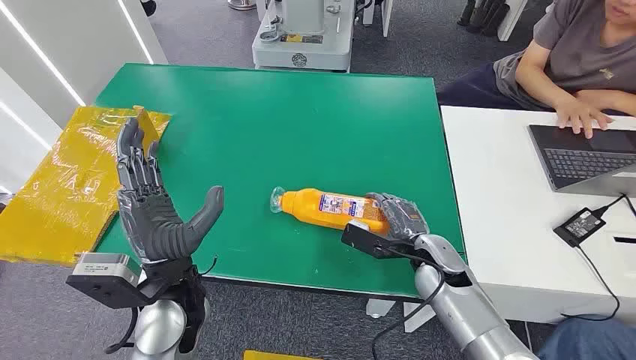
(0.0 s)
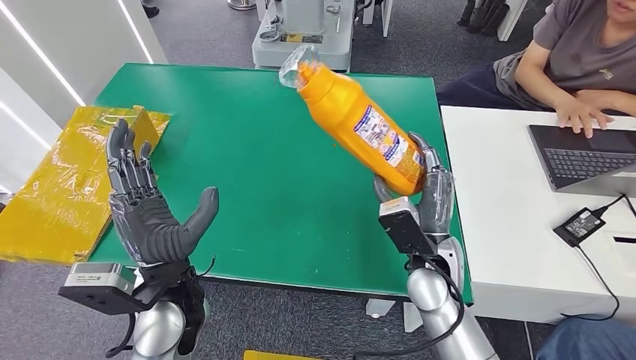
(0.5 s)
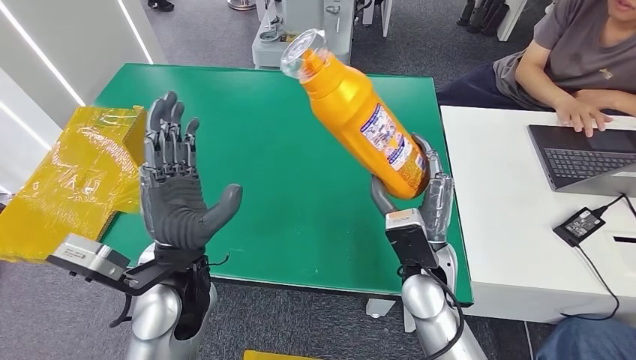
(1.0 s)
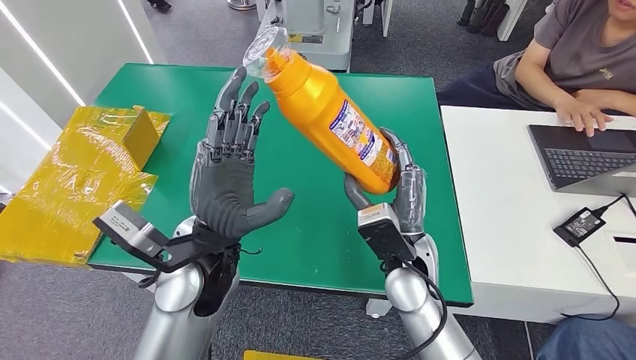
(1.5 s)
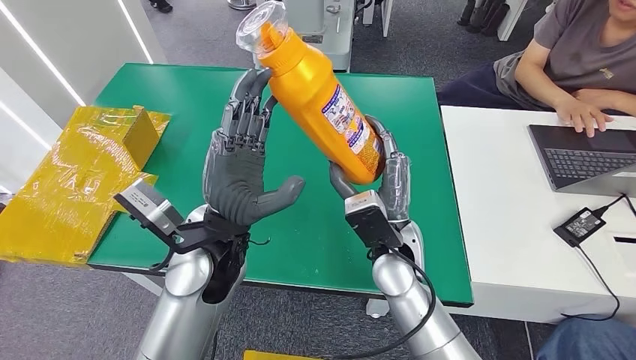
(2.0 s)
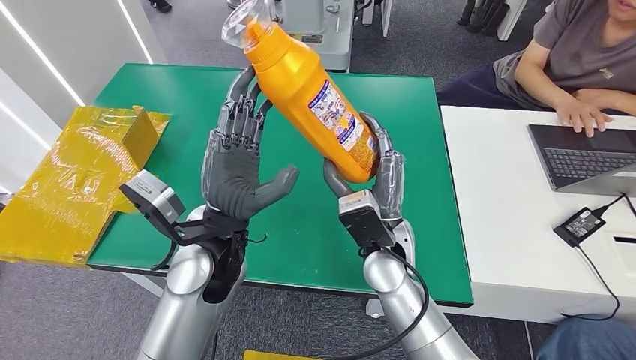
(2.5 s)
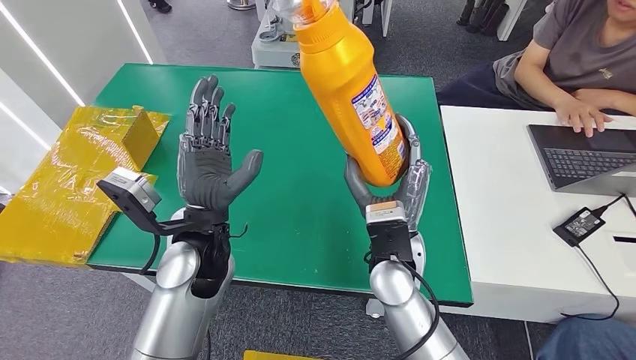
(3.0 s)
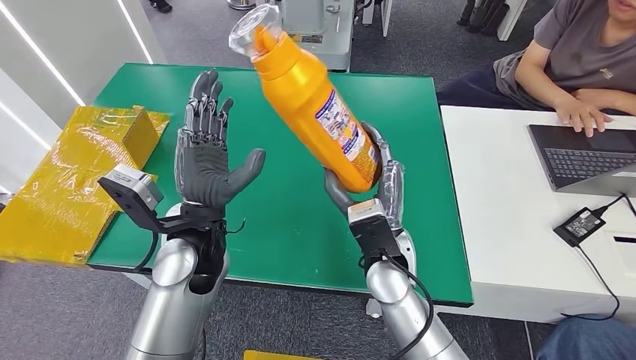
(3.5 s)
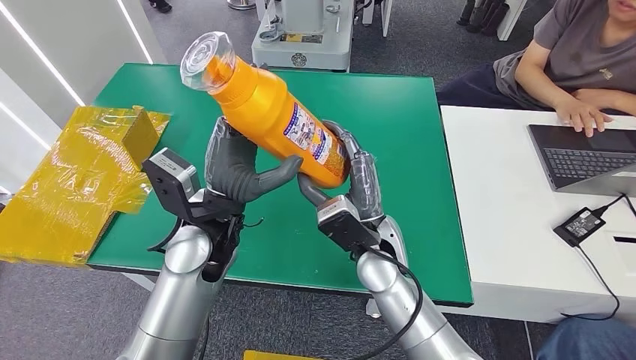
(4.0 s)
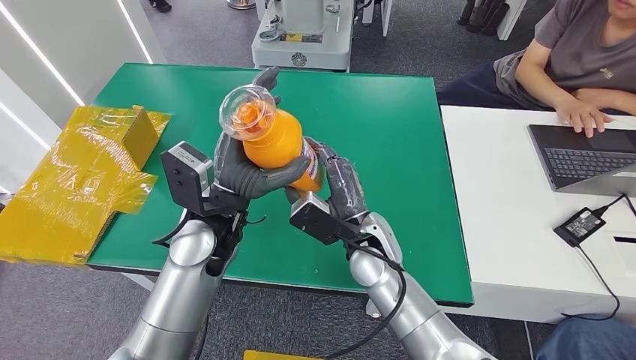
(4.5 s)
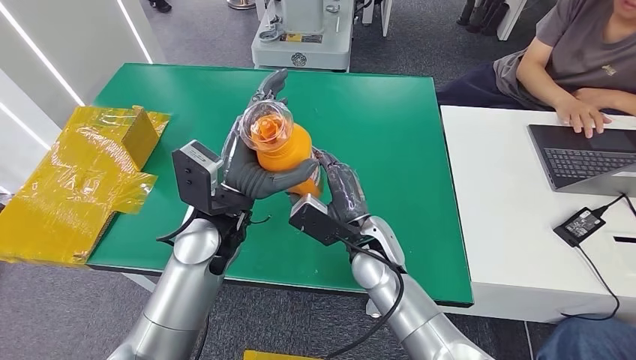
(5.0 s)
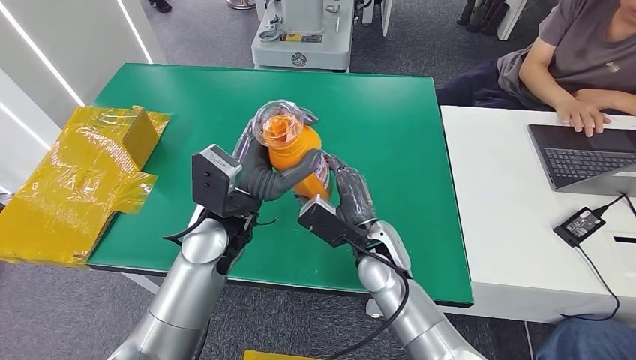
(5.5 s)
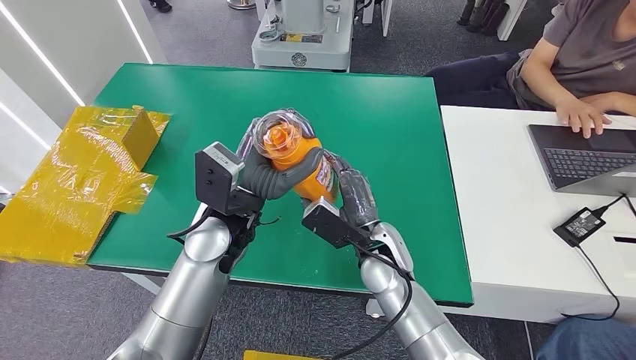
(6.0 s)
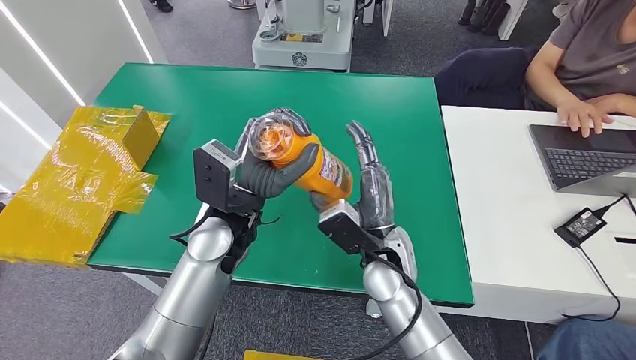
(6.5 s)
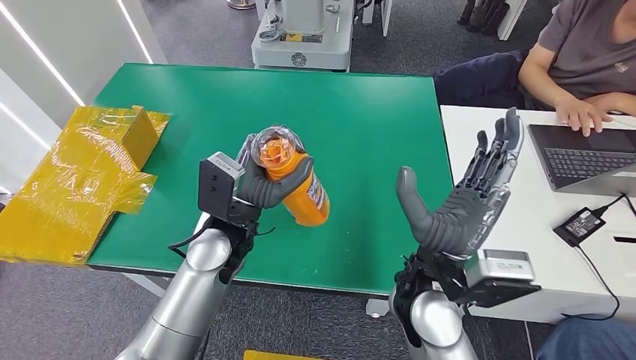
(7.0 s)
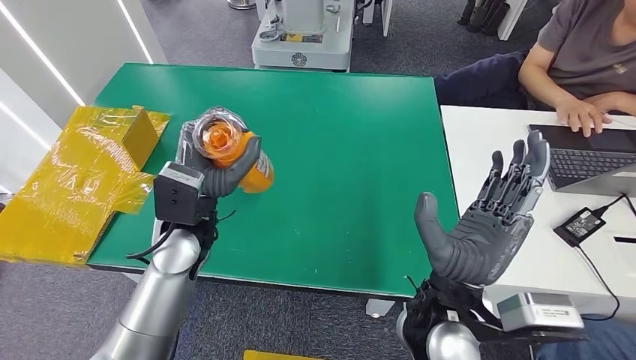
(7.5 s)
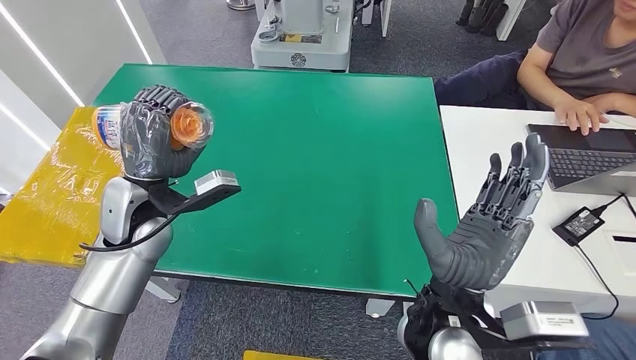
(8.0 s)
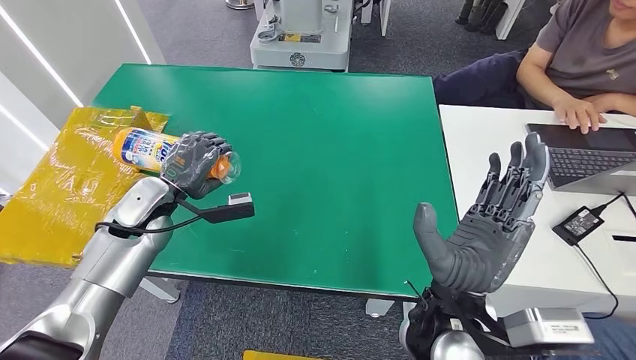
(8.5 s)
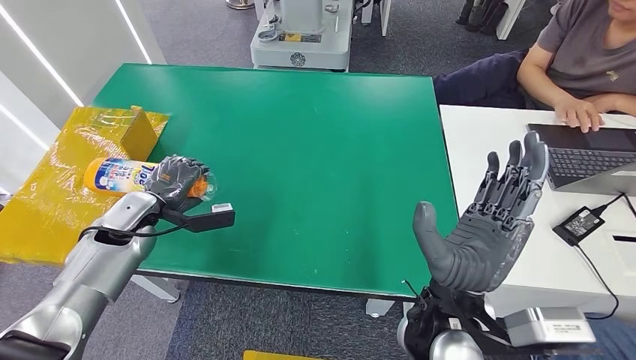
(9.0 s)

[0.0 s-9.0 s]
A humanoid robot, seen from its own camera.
Step, 0.0 to 2.0 s: Pick up the bottle from the table.

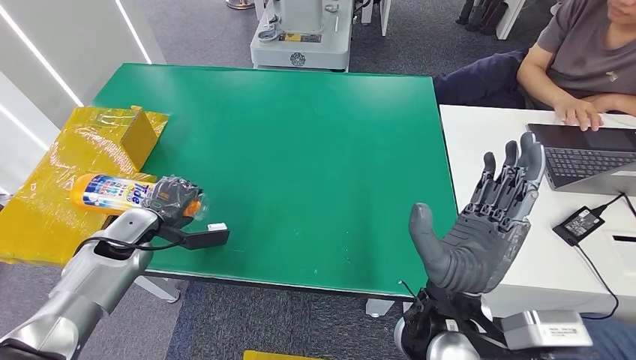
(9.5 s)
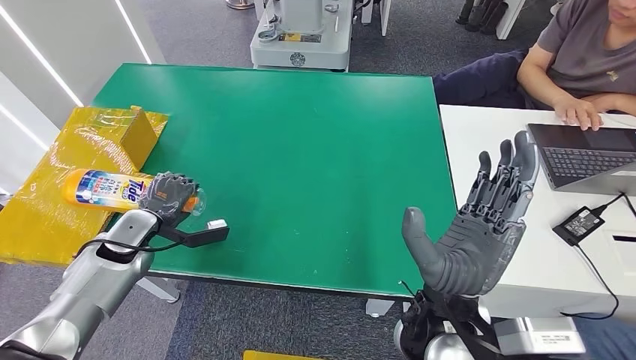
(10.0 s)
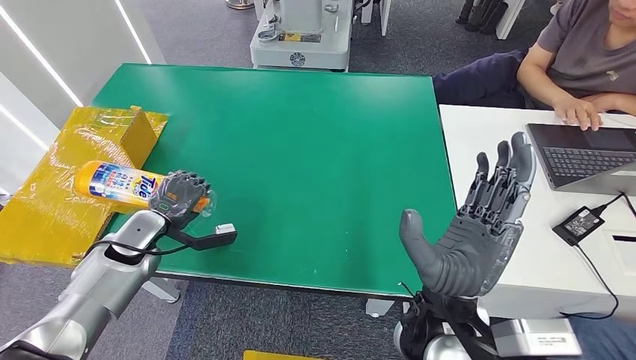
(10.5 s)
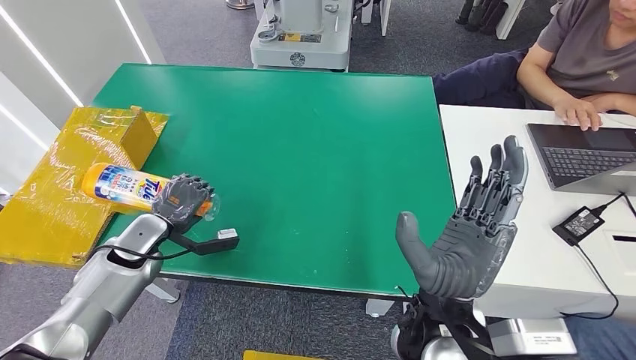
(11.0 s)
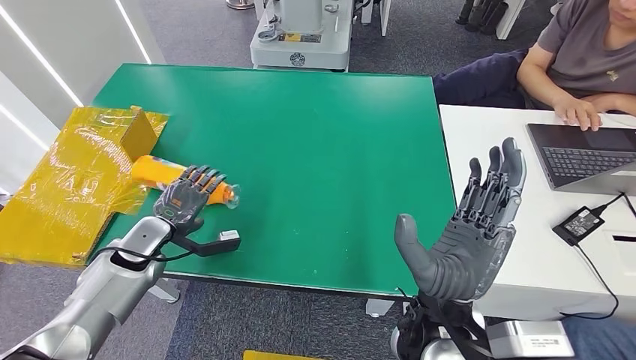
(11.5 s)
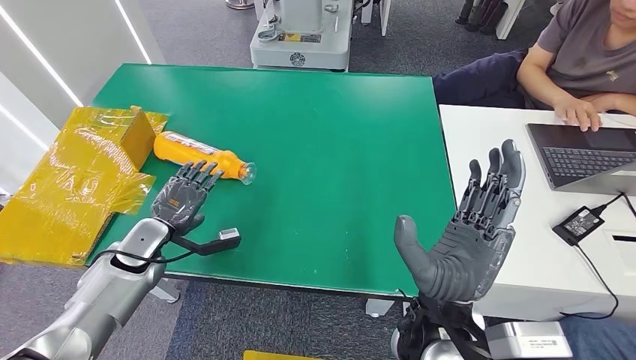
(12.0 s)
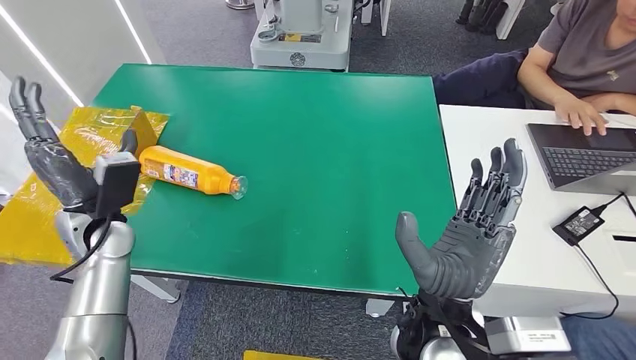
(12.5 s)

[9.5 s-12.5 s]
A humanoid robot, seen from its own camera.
Step, 9.5 to 12.5 s: Turn the bottle to the front side.
9.5 to 11.0 s: There are only small adjustments of the hands.
11.0 to 12.5 s: The left hand shifts roughly 10 cm to the right and upward.
